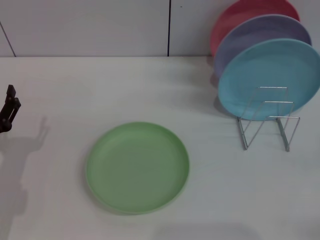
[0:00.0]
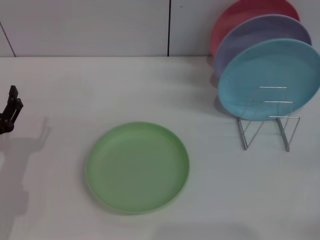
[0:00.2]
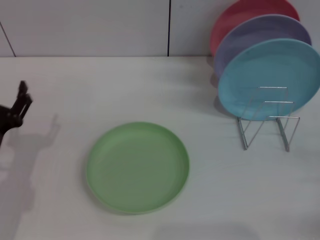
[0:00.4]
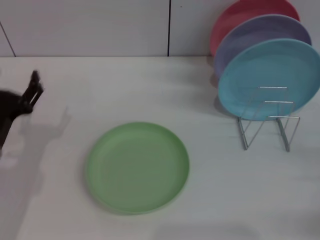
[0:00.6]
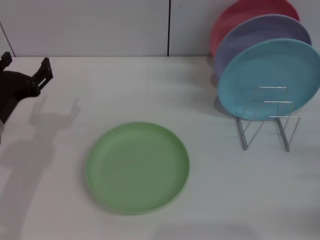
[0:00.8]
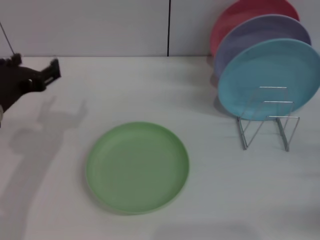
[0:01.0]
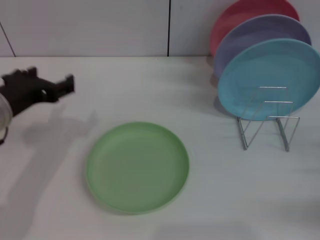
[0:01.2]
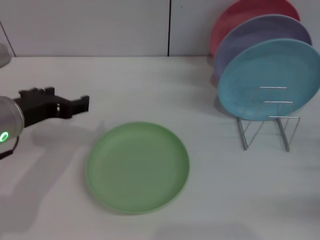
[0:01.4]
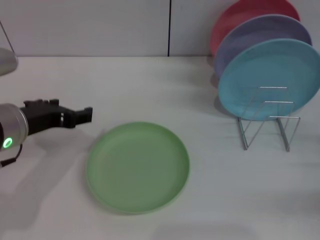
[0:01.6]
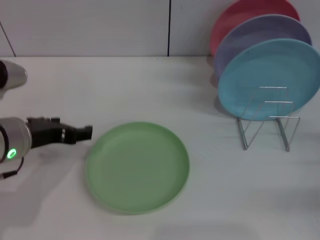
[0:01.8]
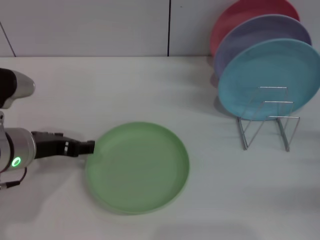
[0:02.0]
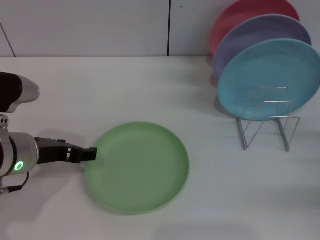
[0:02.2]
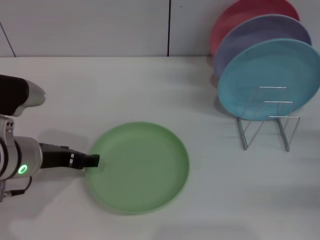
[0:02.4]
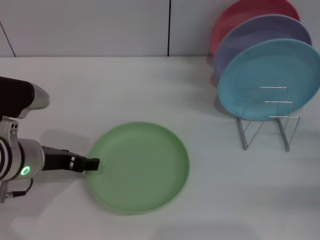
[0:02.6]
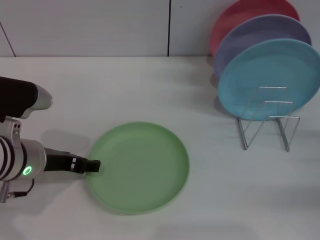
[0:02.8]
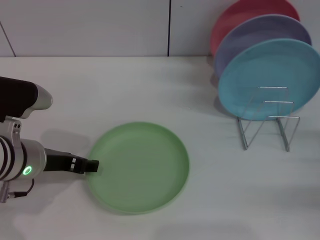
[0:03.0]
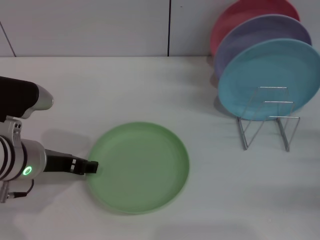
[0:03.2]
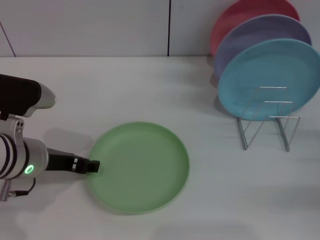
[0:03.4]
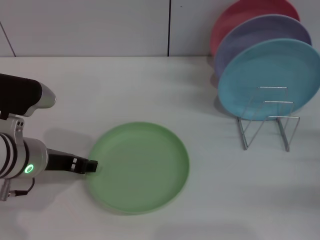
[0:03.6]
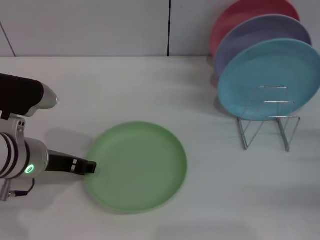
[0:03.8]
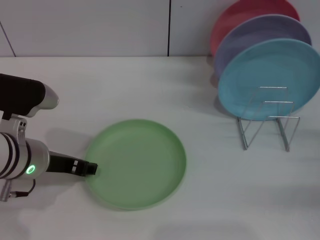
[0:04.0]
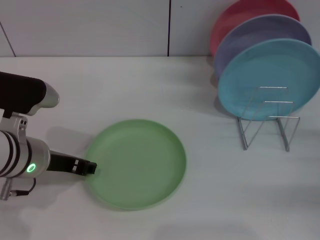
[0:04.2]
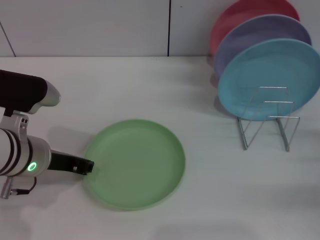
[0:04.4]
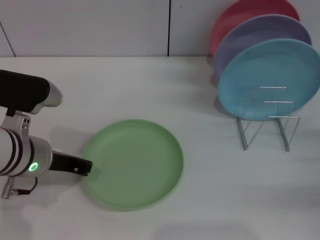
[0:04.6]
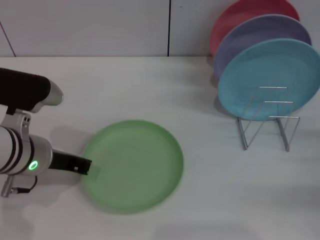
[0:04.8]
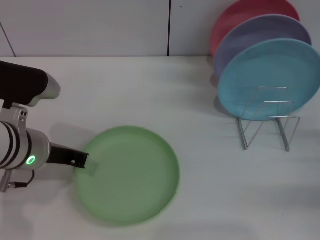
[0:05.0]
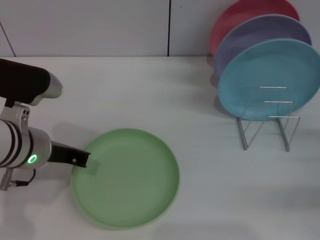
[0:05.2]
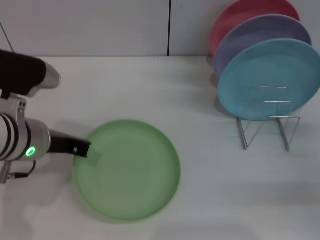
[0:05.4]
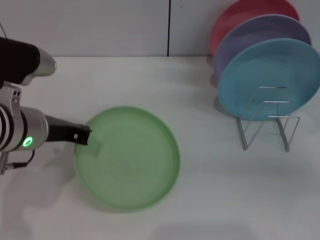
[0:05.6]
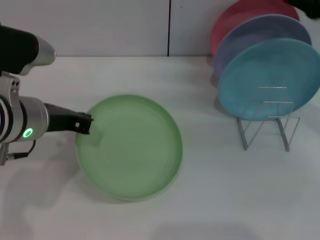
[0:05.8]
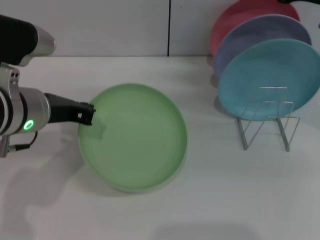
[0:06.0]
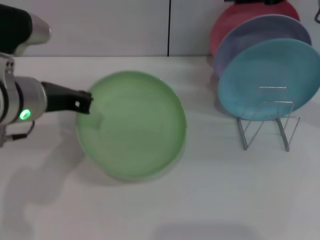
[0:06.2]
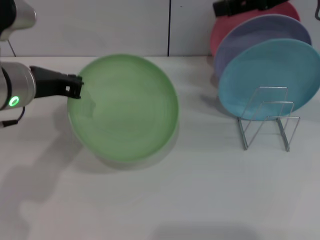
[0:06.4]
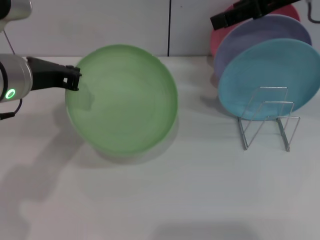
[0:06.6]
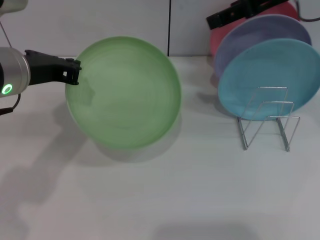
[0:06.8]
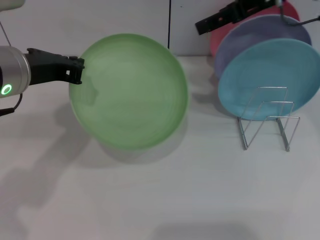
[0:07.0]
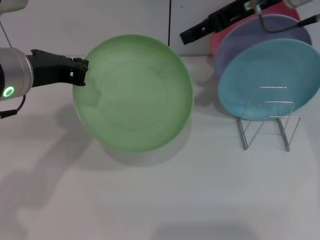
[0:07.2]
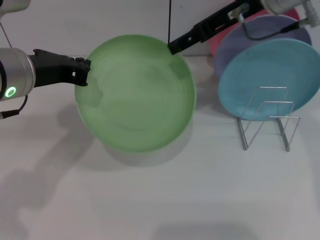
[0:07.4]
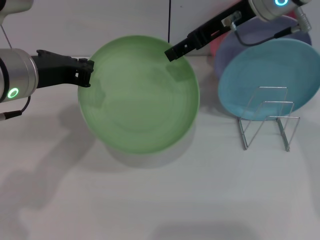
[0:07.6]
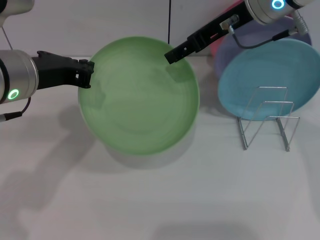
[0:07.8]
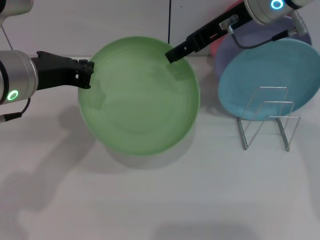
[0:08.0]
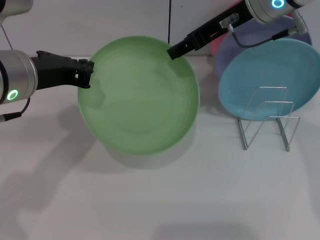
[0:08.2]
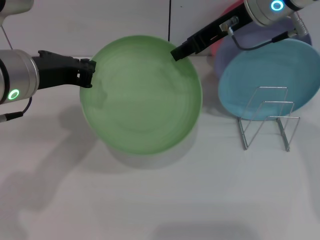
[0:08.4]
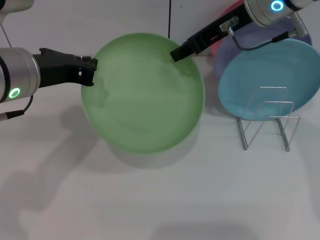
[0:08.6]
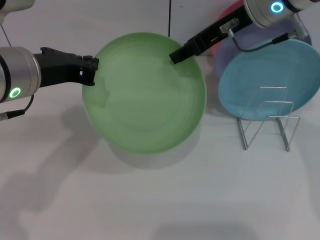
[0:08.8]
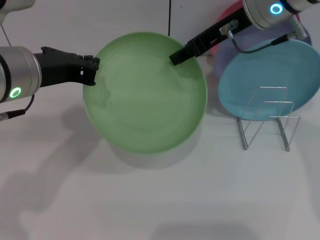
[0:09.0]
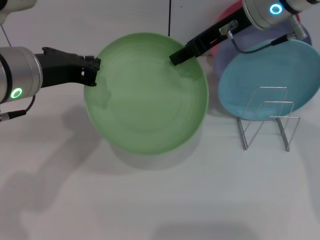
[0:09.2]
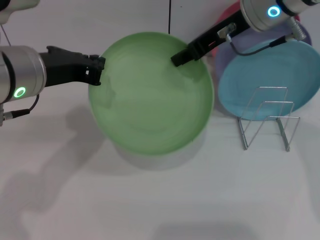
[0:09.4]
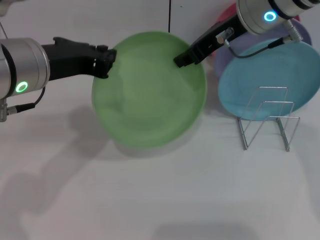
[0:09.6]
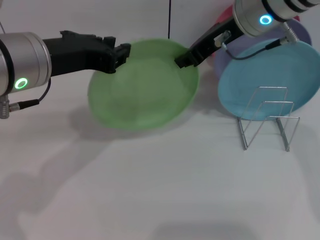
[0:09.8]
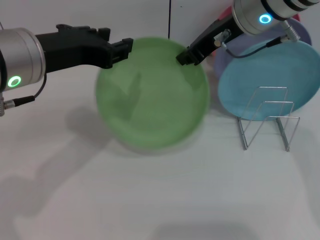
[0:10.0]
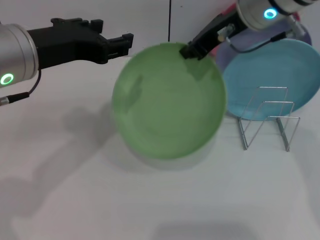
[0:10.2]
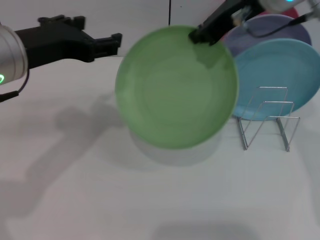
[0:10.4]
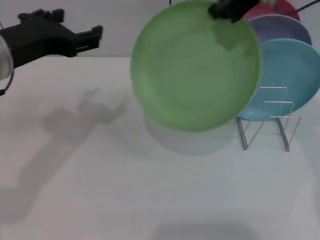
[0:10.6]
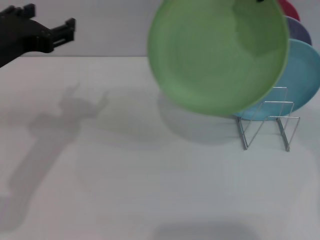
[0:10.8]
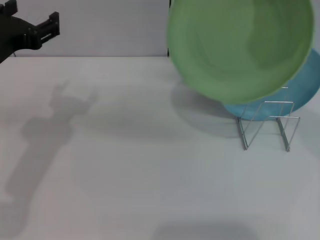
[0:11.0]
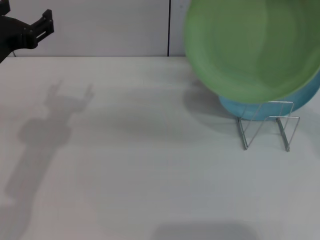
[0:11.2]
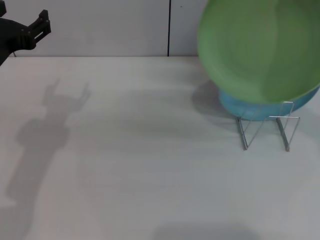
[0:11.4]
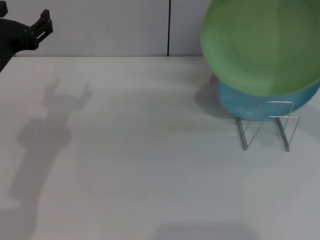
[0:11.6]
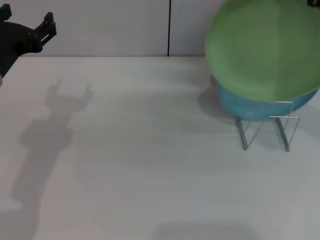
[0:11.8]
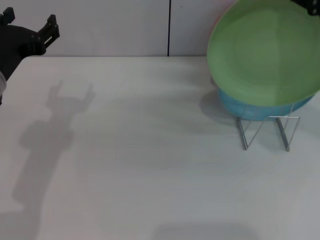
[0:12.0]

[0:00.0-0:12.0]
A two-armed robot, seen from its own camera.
Task of the whole recording: Grip the plate with one hand, pass it to the other, then set it on the shelf.
Step, 0:00.0 to 0:05.4: Pick up the plate with the left gripper.
Step, 0:05.6 to 0:10.2: Pass the plate from the left gripper to the right gripper.
0:00.0 to 0:01.6: The left gripper heads upward and to the right, covering some 15 cm.
0:01.6 to 0:03.0: The grippers move only a little.
0:03.0 to 0:04.4: Both grippers stay about where they are.
0:04.4 to 0:06.0: The left gripper shifts some 5 cm upward, and closes, while the right gripper travels upward, forward and to the left by roughly 25 cm.
0:06.0 to 0:07.6: The right gripper heads to the left, covering approximately 10 cm.
0:07.6 to 0:09.0: The right gripper closes.
0:09.0 to 0:10.4: The right gripper closes its fingers. The left gripper opens.
0:10.4 to 0:12.0: The right gripper is displaced to the right and backward by approximately 10 cm, while the left gripper travels downward by approximately 5 cm.

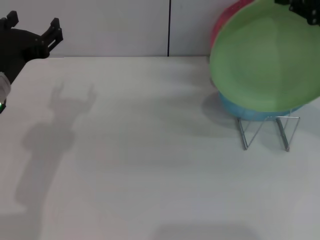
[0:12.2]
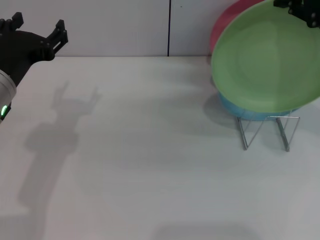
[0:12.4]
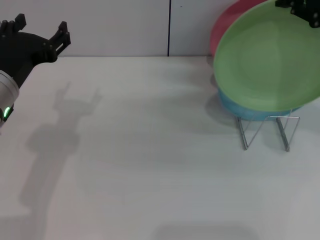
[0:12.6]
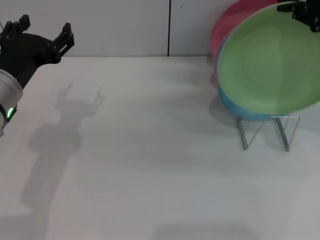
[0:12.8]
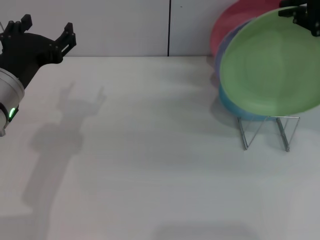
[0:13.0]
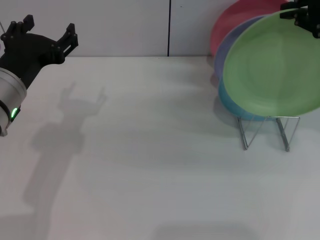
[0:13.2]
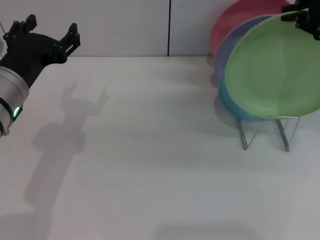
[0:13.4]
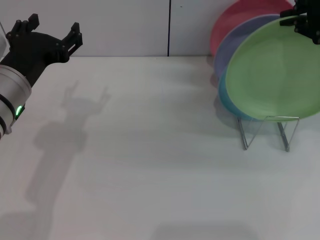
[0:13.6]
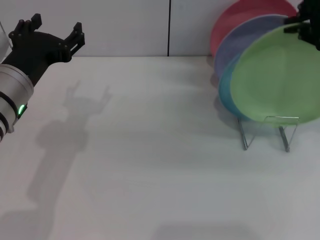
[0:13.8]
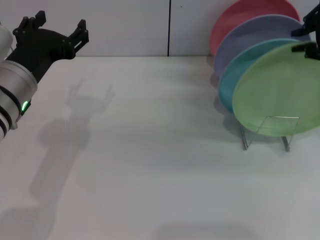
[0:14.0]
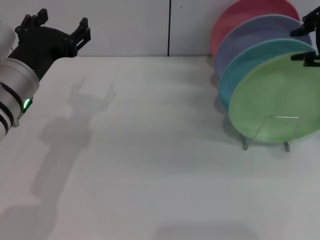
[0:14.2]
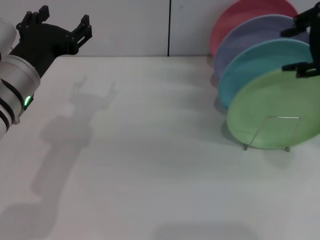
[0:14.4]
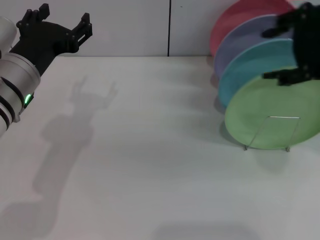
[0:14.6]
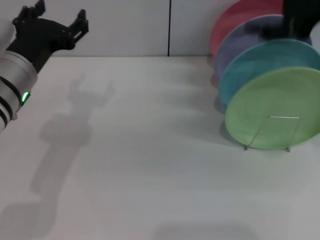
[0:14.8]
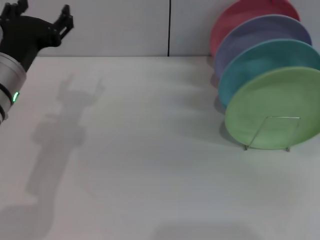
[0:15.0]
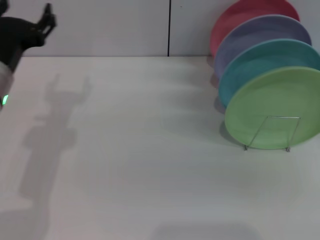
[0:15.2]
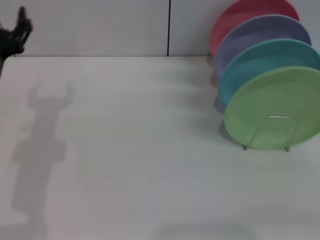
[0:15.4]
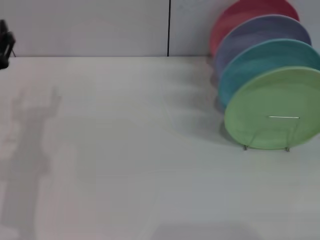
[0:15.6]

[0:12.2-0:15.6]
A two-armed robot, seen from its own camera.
Task of the whole recording: Grip the plate with one hand, pass it to the other, then set it on the shelf.
Step, 0:12.2 to 0:14.2: Place the plate on the shelf with the right gripper.
0:12.2 to 0:13.8: There are only small adjustments of the grippers.
0:13.8 to 0:15.6: The left gripper goes about 5 cm downward; the right gripper travels to the right, backward and downward by roughly 30 cm, and opens up.

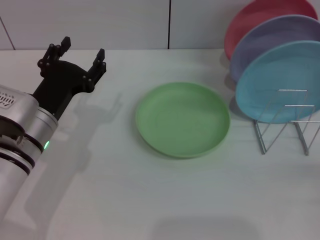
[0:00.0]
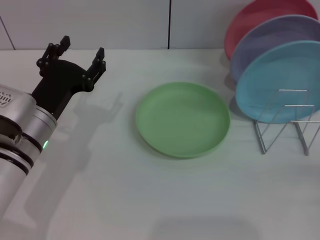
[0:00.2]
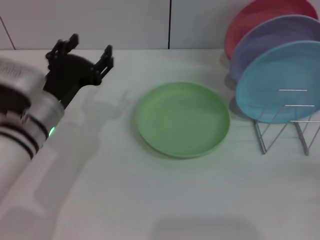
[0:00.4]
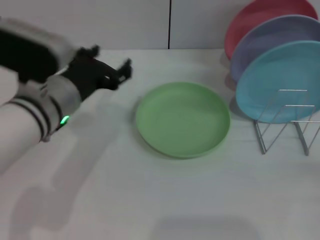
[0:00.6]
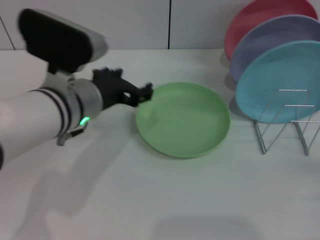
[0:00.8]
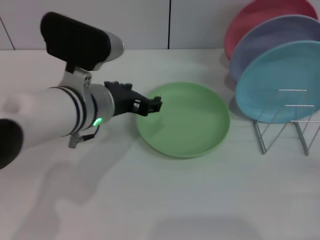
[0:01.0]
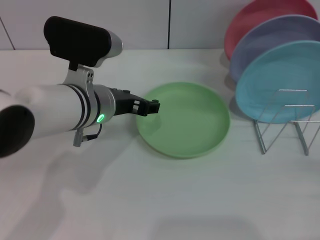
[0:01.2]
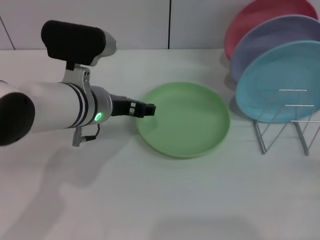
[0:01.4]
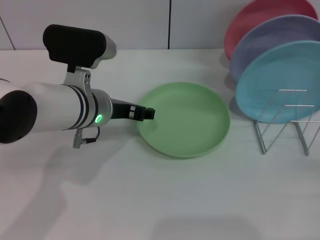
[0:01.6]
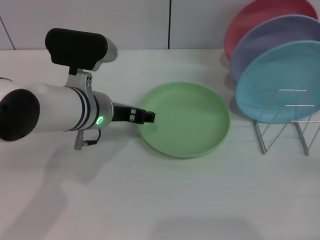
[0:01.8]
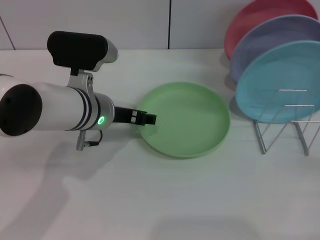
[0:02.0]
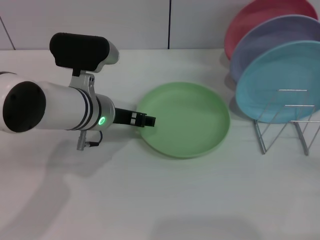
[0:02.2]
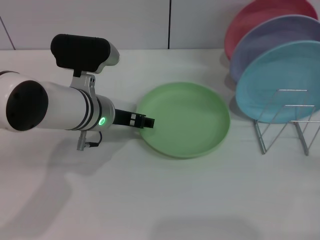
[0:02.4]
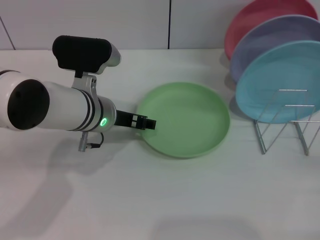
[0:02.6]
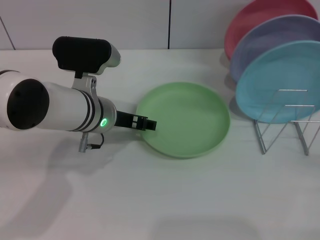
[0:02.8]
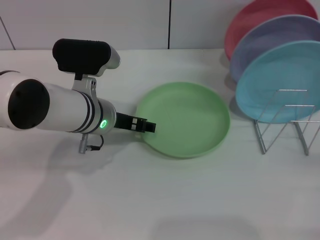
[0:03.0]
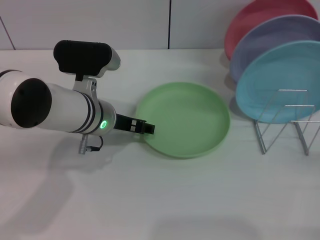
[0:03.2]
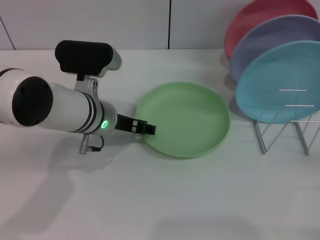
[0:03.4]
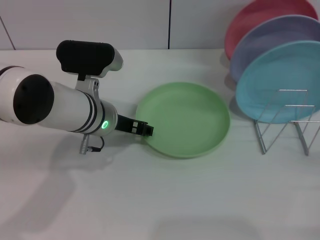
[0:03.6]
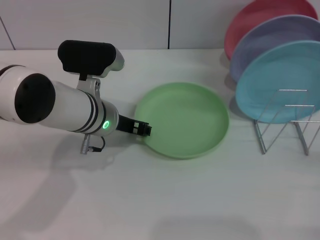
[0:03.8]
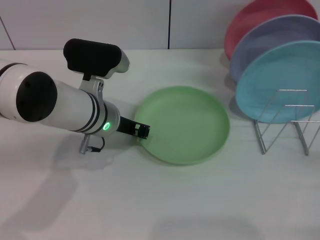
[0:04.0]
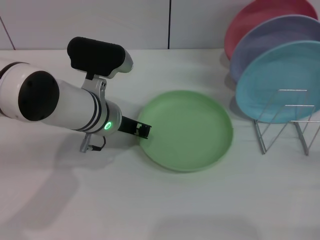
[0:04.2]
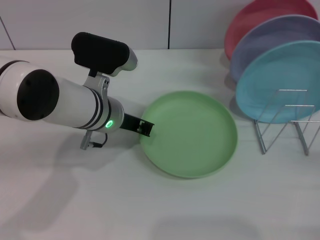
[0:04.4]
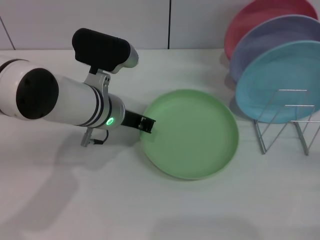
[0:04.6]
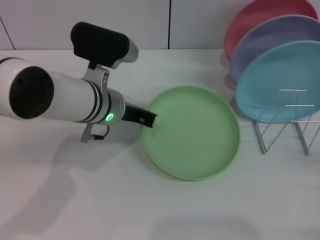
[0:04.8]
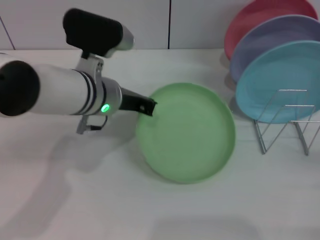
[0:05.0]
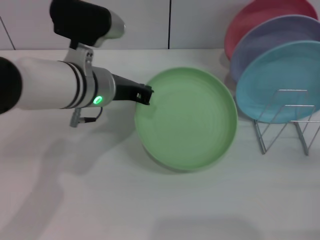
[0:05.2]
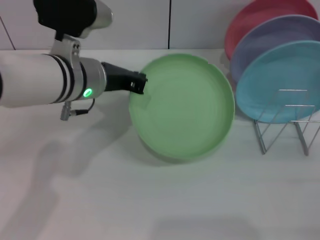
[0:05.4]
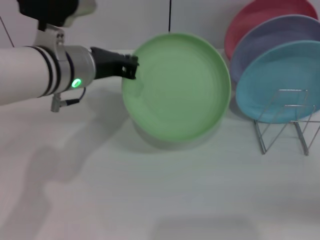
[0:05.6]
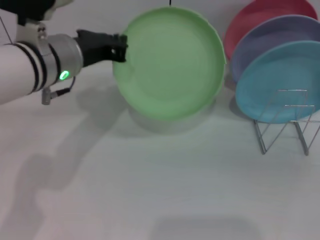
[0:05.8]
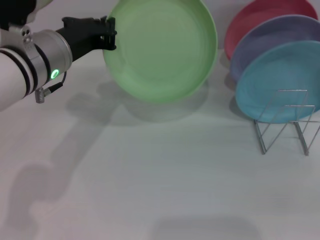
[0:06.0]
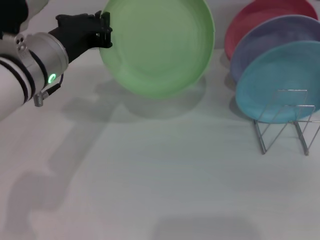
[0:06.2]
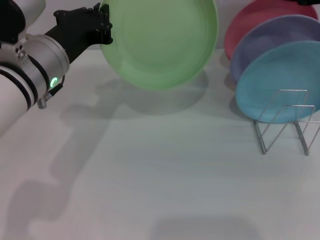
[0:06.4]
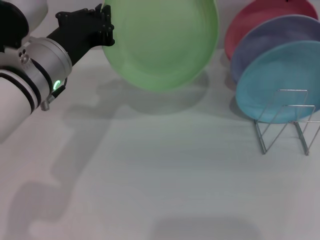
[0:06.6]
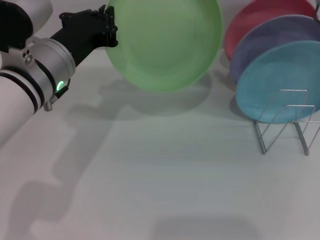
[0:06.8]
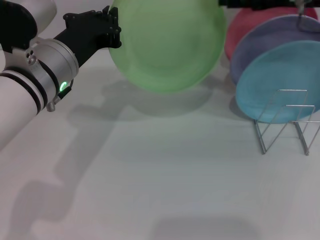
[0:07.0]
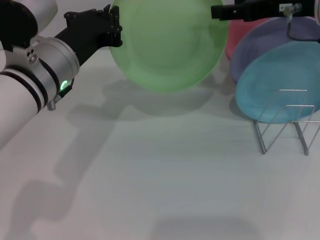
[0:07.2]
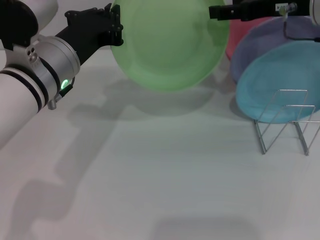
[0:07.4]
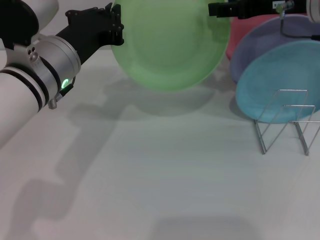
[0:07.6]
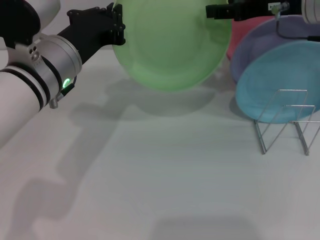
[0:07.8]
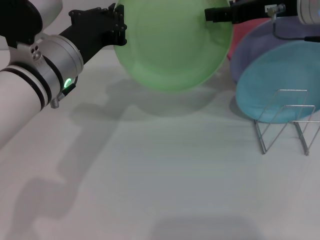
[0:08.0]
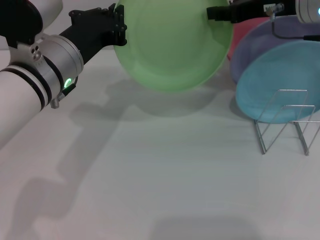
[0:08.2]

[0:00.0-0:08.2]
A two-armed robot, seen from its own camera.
Task of the whole recording: Grip the plate with one hand, pass it to the other, then set it on the shelf.
Step, 0:00.0 to 0:05.4: Pick up the plate with the left gripper.
0:00.0 to 0:01.6: The left gripper moves to the right and forward, some 10 cm.
0:01.6 to 0:03.2: The grippers stay close to where they were, moving slightly.
0:03.2 to 0:05.0: The left gripper closes its fingers.
0:05.0 to 0:06.6: The right gripper heads upward, forward and to the left, covering some 30 cm; the left gripper shifts about 5 cm to the left.
0:06.6 to 0:08.2: The right gripper shifts about 5 cm to the left, and closes.
